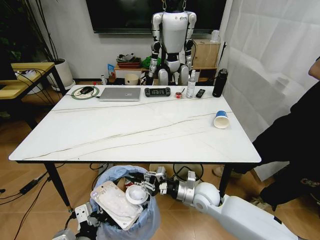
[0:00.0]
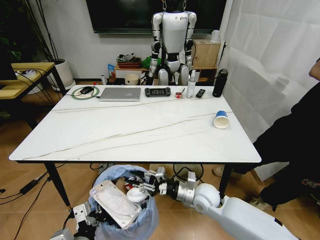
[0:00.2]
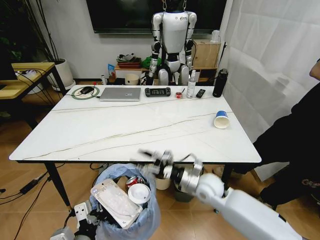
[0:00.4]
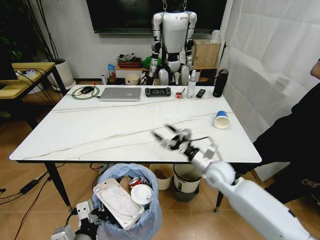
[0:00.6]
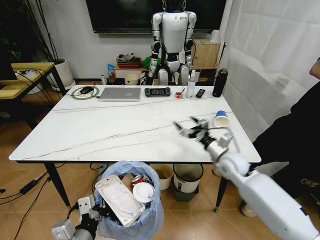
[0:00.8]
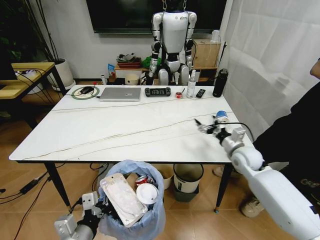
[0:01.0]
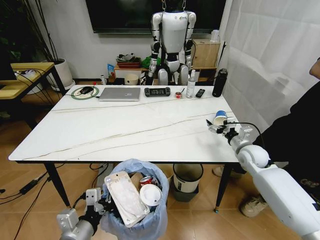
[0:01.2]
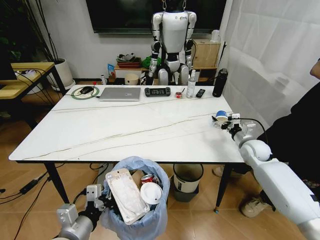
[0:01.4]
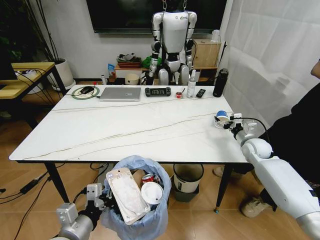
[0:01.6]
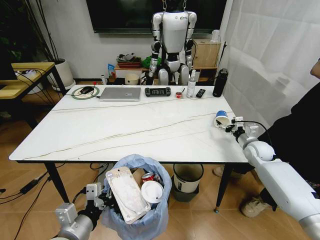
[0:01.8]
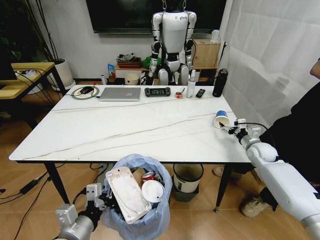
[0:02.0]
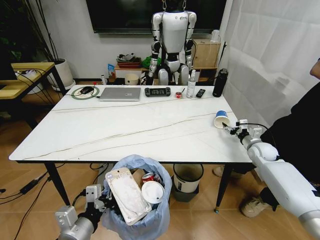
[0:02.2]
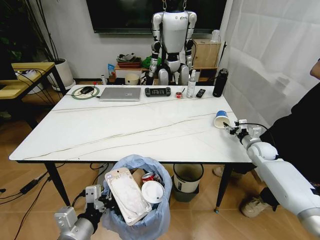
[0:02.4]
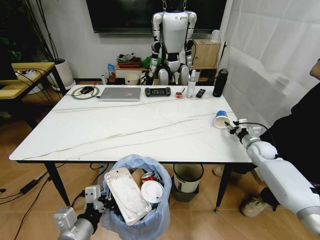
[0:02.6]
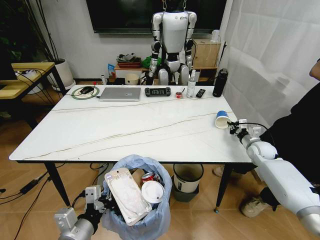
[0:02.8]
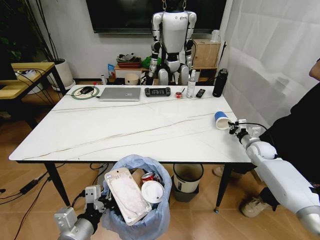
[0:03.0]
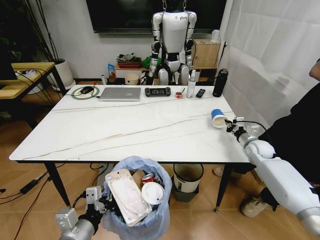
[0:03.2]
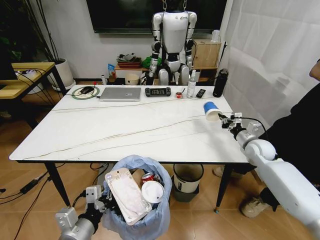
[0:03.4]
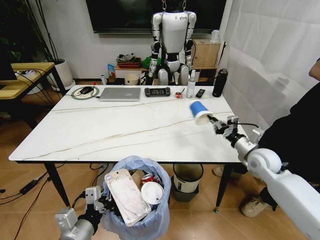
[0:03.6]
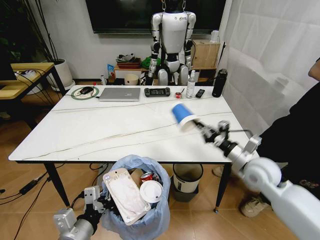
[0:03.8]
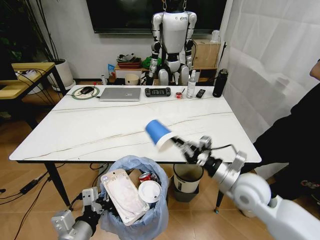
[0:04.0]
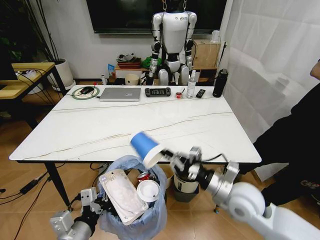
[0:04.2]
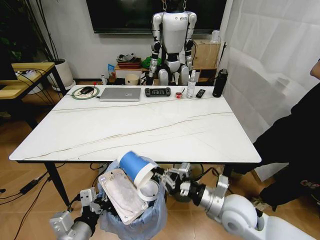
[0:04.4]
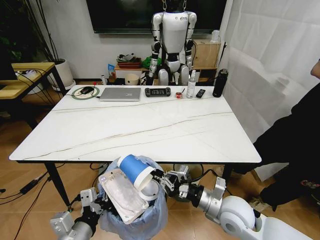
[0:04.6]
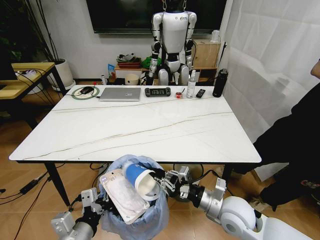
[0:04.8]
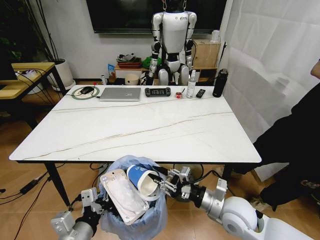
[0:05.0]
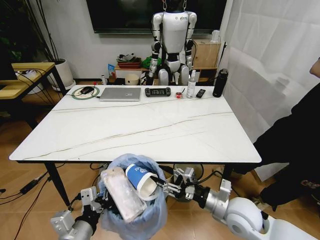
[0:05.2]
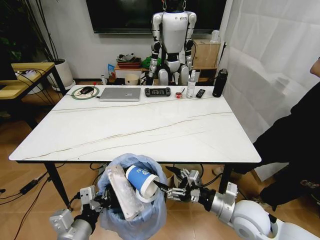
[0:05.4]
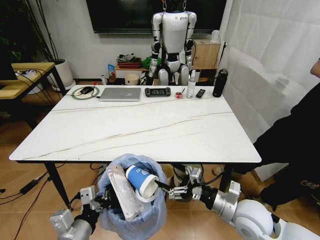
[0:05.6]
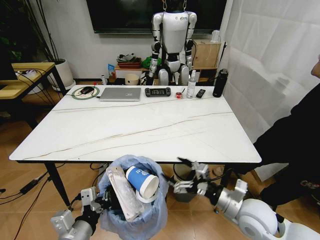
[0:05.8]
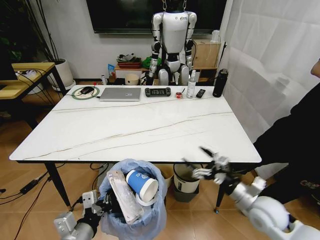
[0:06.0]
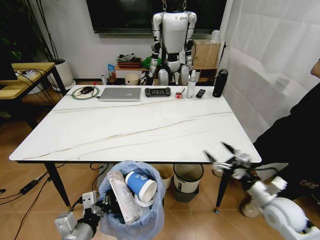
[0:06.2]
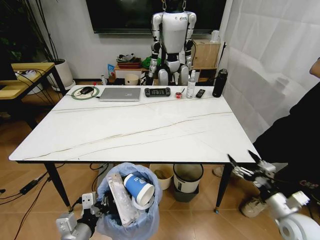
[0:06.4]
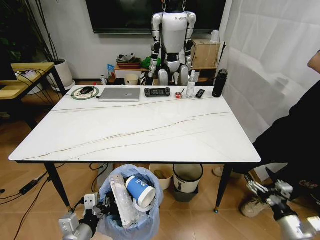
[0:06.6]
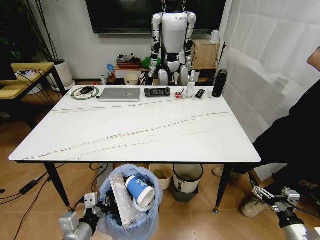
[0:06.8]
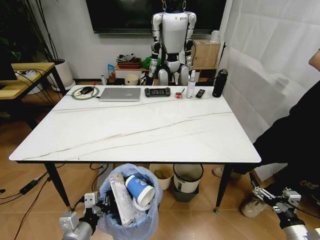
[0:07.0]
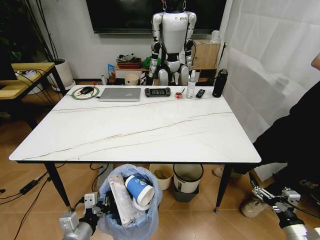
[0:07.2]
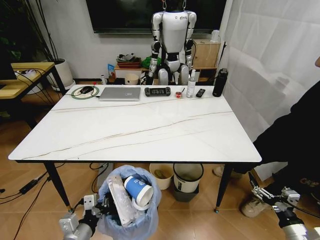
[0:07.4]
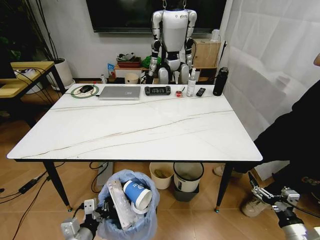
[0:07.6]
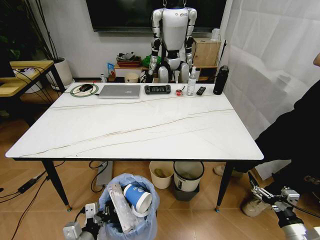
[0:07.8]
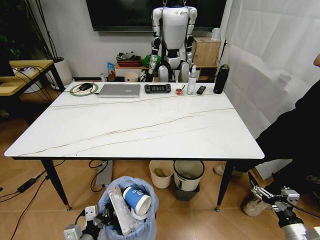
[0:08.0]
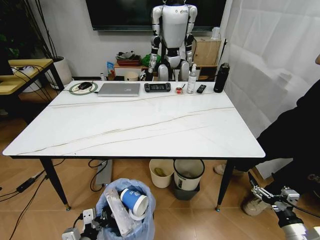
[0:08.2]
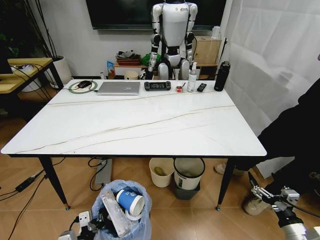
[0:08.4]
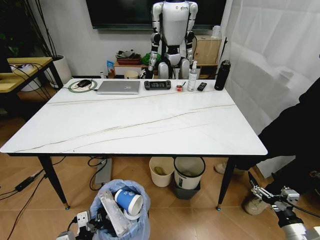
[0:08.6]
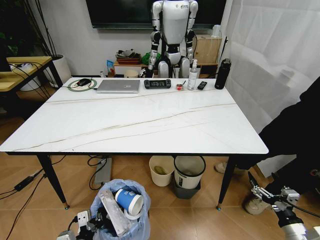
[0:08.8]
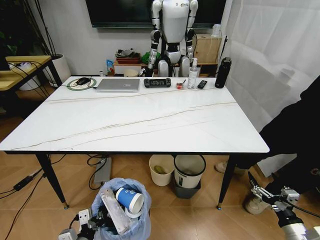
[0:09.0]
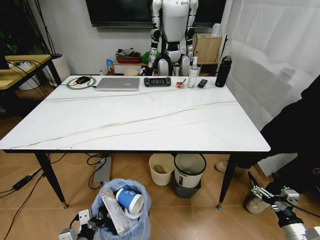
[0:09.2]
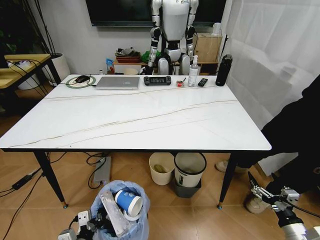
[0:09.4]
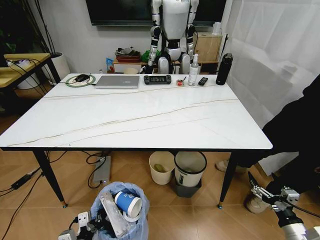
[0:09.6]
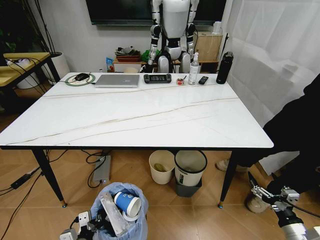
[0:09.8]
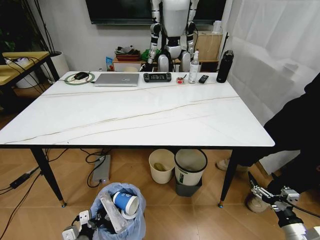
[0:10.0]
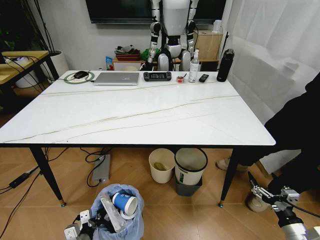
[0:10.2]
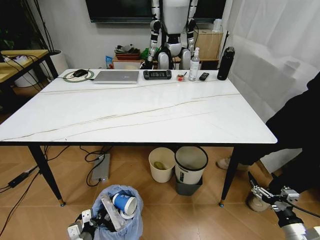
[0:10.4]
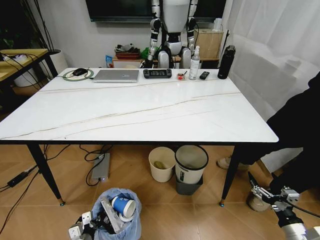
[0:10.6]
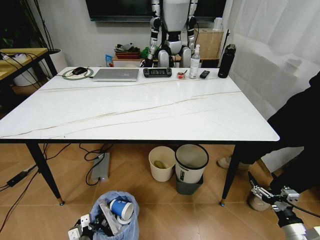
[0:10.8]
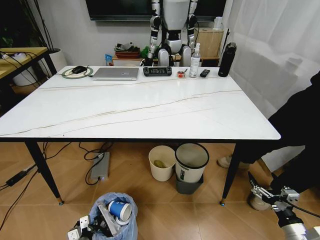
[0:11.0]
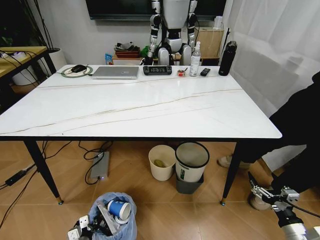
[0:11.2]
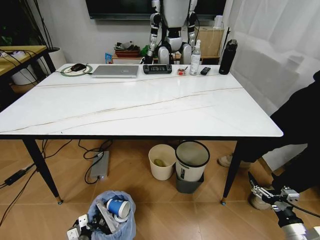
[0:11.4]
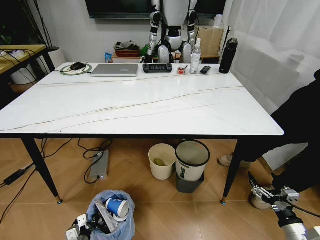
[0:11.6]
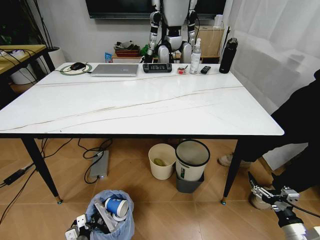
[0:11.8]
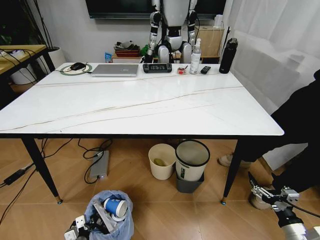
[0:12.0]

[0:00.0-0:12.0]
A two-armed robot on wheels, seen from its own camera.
Task of the whole recording: Pick up the trash bin and place the trash from the table into it.
0:00.0 to 0:01.6: The left gripper ends up roughly 5 cm from where it was, while the right gripper heads to the right and forward, covering about 30 cm, and opens its fingers.
0:01.6 to 0:03.0: The right gripper shifts by some 5 cm, and closes its fingers.
0:03.0 to 0:04.4: The right gripper travels backward and to the left by approximately 35 cm.
0:04.4 to 0:06.0: The right gripper shifts approximately 10 cm to the right, and opens its fingers.
0:06.0 to 0:07.6: The left gripper moves downward, about 10 cm. Meanwhile the right gripper is displaced backward, to the right and downward by approximately 20 cm.
0:09.0 to 0:10.4: The left gripper heads downward, covering roughly 10 cm.
0:10.4 to 0:12.0: The left gripper moves downward, roughly 5 cm.

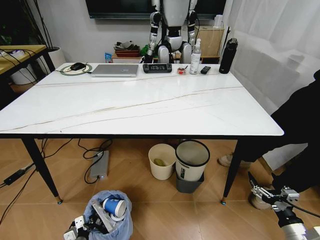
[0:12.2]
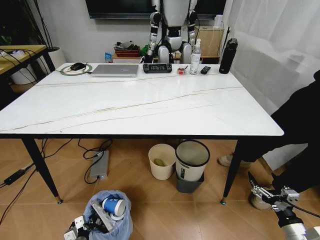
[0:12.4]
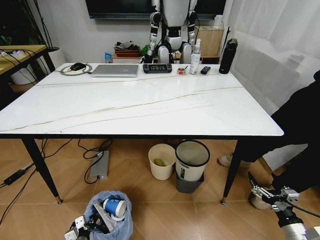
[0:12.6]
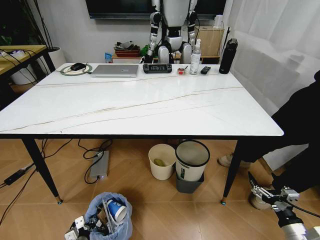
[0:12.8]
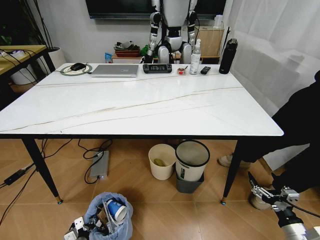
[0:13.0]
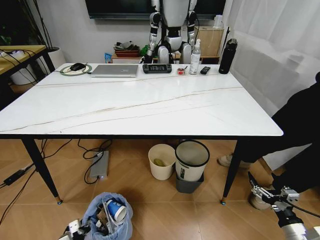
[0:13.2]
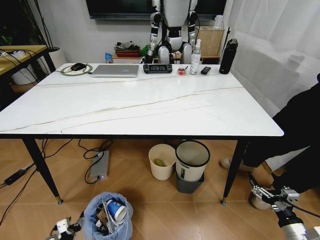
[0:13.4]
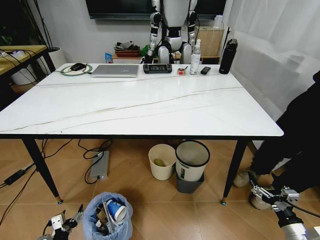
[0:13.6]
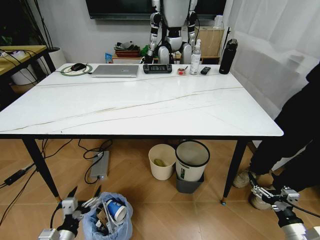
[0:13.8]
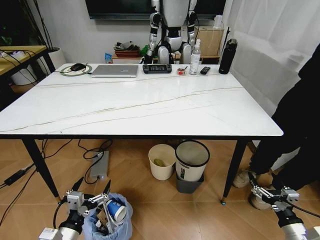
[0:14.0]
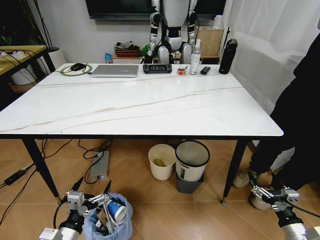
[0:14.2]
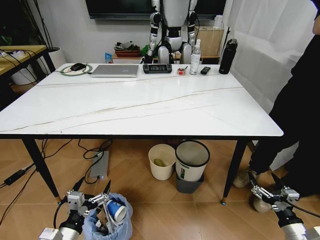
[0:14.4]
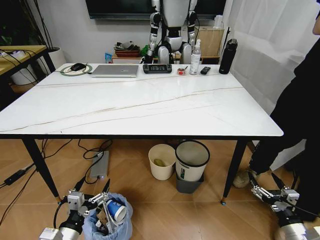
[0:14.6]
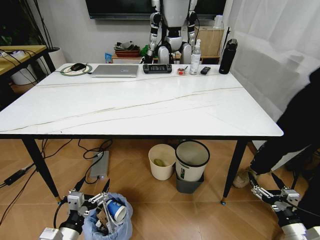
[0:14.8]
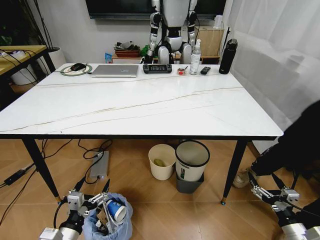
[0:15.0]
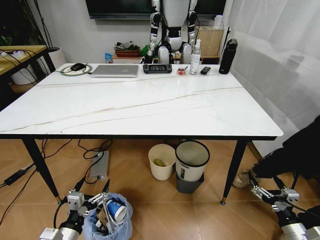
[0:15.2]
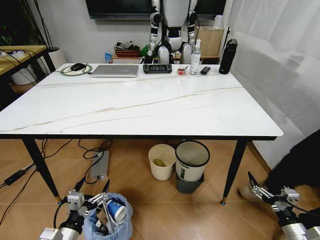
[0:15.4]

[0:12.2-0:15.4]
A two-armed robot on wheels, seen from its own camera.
Task of the whole recording: Pick up the trash bin and place the trash from the table into it.
0:12.2 to 0:13.8: The left gripper heads upward, covering approximately 15 cm, and opens.
0:13.8 to 0:15.4: The left gripper shifts about 5 cm upward.
